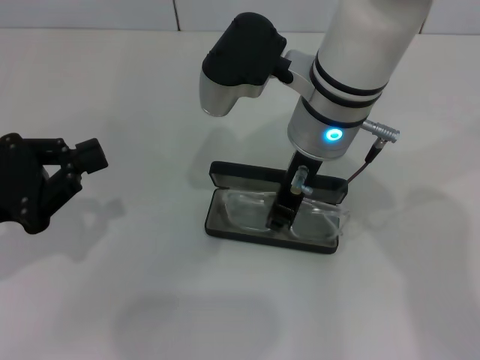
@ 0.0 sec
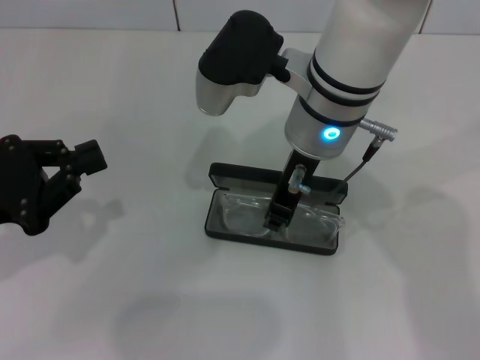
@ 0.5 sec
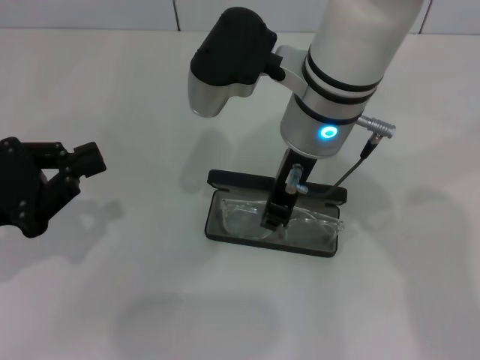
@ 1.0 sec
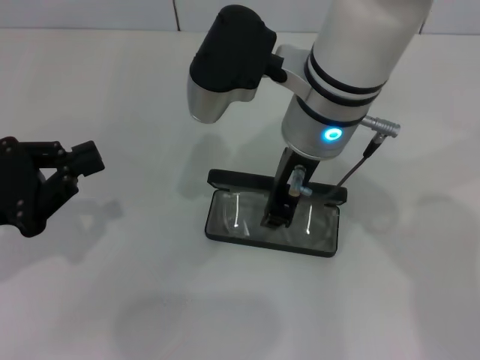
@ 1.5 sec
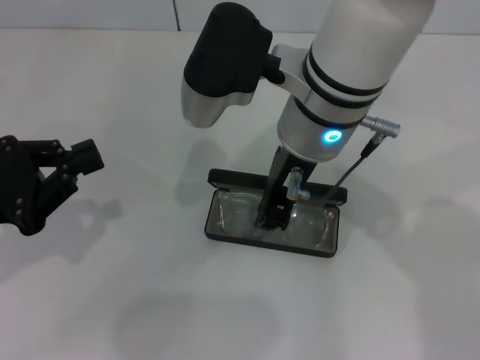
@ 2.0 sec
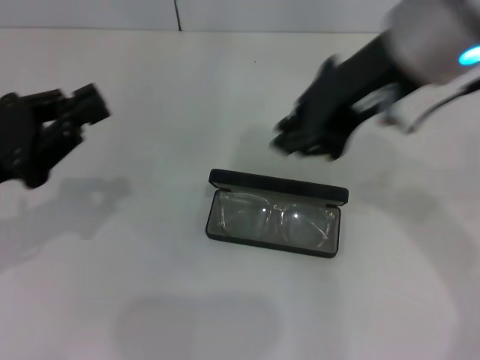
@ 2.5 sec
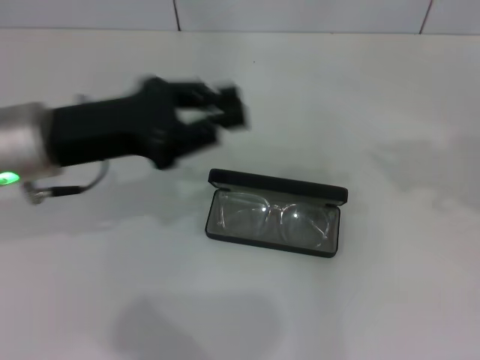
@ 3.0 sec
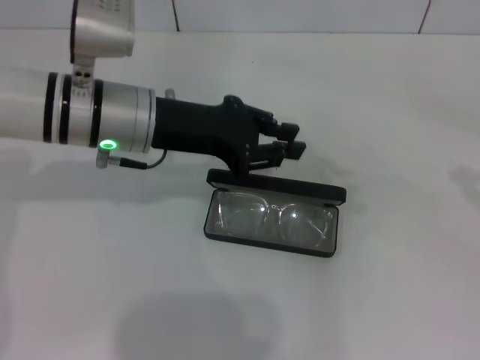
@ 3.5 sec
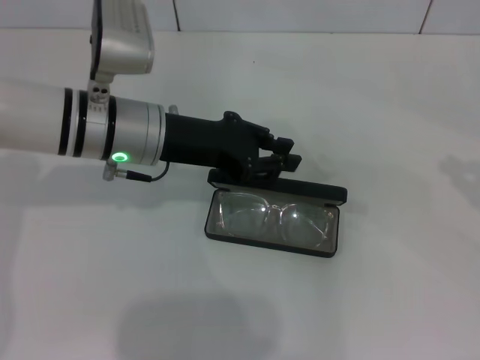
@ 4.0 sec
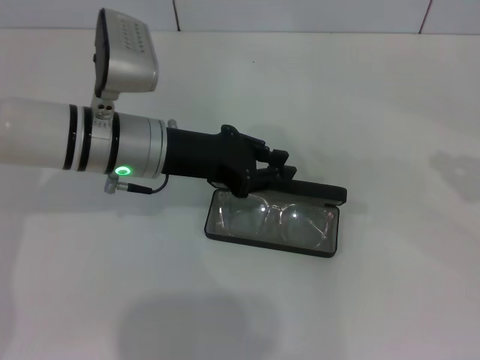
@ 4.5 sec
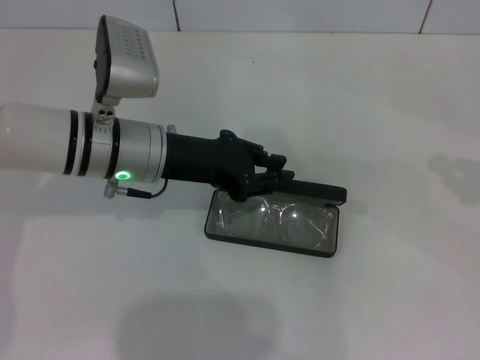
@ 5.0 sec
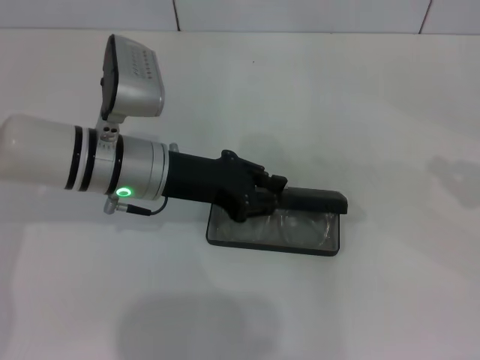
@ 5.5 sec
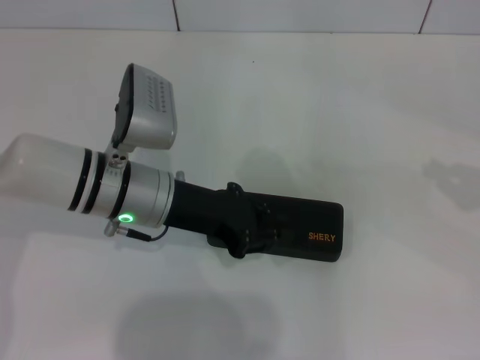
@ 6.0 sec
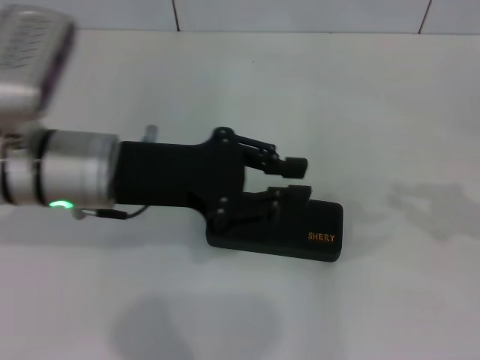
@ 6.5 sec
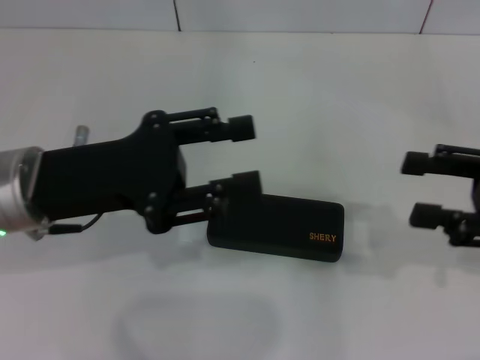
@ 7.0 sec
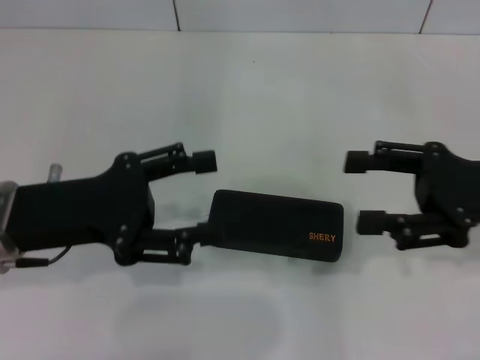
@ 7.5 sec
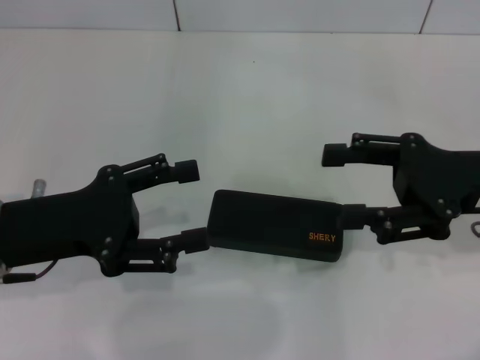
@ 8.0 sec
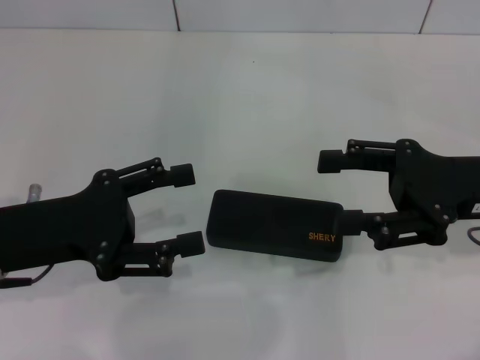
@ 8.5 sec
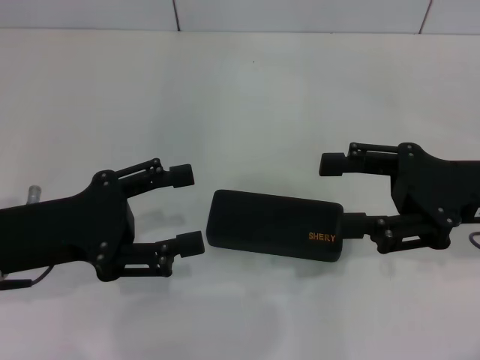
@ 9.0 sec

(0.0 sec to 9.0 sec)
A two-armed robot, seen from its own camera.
Step, 2.0 sec - 5.5 sec: Close the glasses case with your left hand.
0.0 sec - 2.0 sec: The grippers stay close to where they were, moving slightly.
2.0 sec - 4.5 sec: The left gripper goes some 20 cm to the right and forward. The right gripper travels to the right by some 40 cm.
4.5 sec - 7.0 sec: The right gripper is displaced to the left and downward by approximately 10 cm. The left gripper travels backward and to the left by about 10 cm.
7.0 sec - 9.0 sec: The right gripper shifts roughly 5 cm to the left, and opens; the left gripper moves about 5 cm, and opens.
